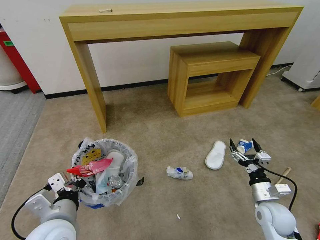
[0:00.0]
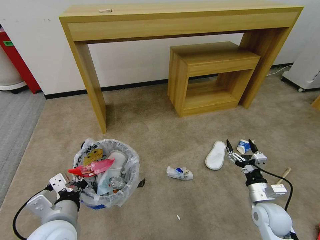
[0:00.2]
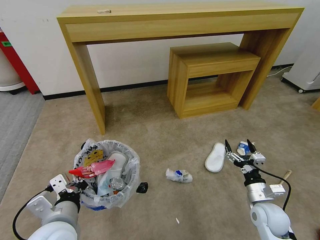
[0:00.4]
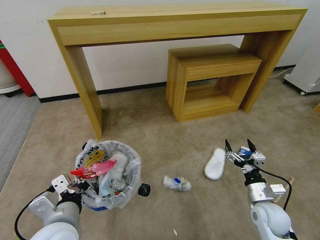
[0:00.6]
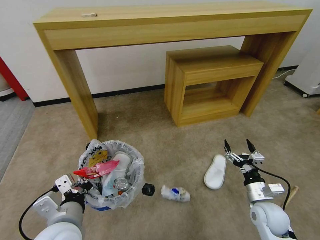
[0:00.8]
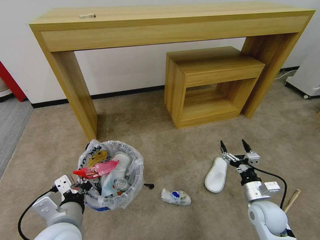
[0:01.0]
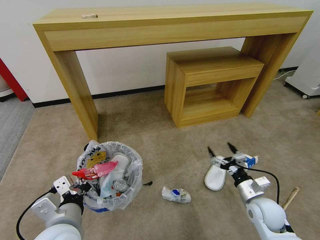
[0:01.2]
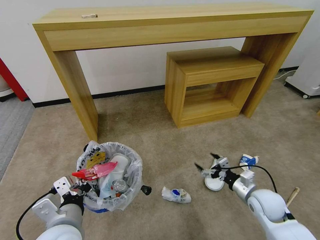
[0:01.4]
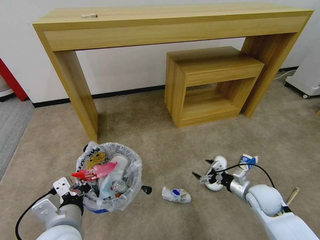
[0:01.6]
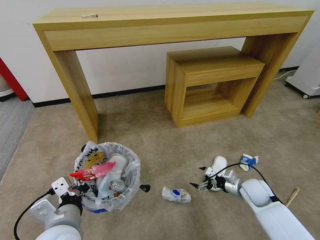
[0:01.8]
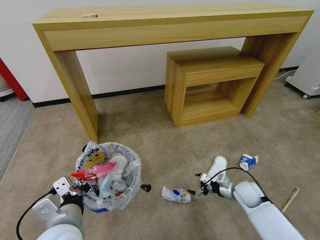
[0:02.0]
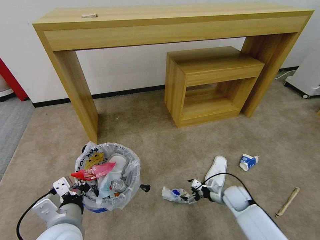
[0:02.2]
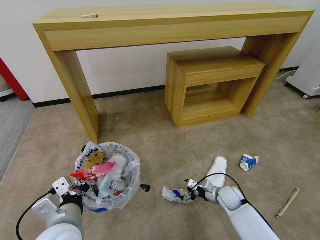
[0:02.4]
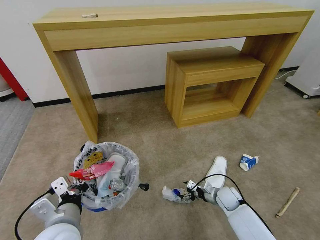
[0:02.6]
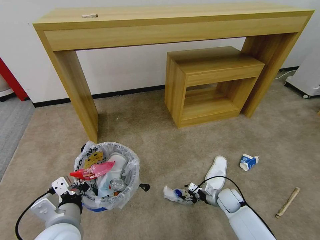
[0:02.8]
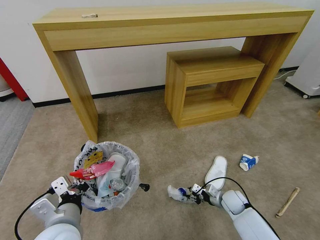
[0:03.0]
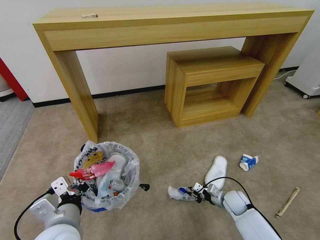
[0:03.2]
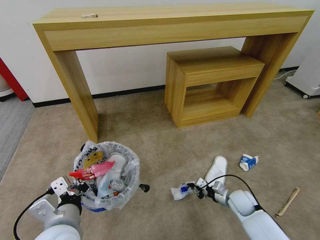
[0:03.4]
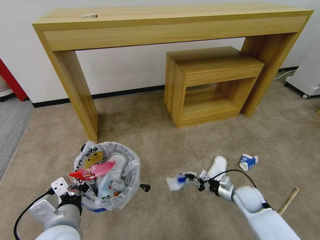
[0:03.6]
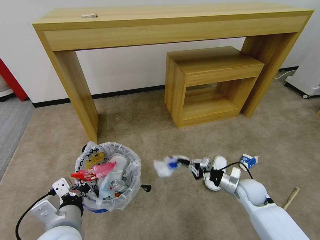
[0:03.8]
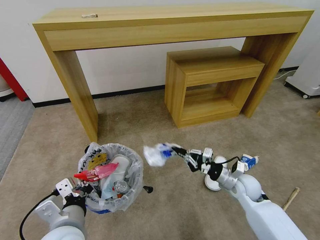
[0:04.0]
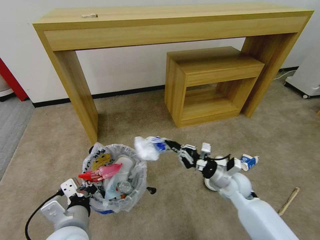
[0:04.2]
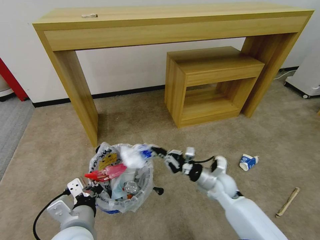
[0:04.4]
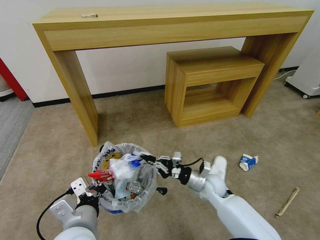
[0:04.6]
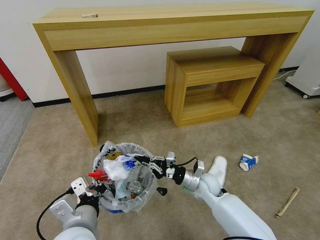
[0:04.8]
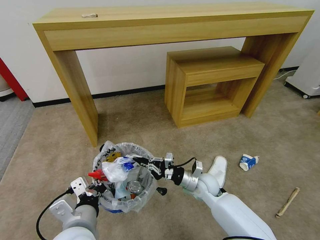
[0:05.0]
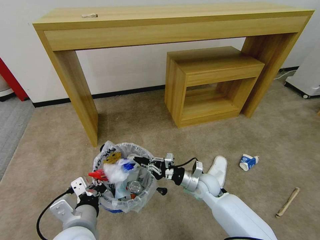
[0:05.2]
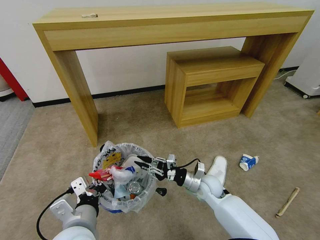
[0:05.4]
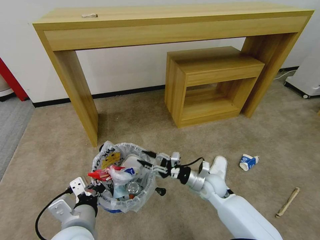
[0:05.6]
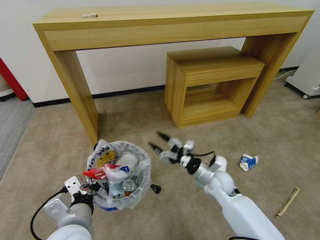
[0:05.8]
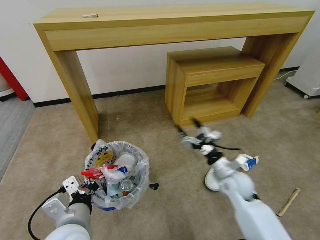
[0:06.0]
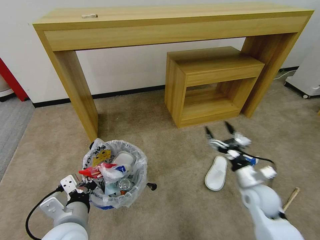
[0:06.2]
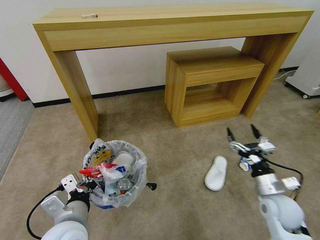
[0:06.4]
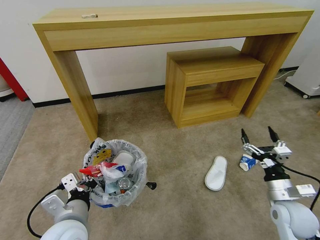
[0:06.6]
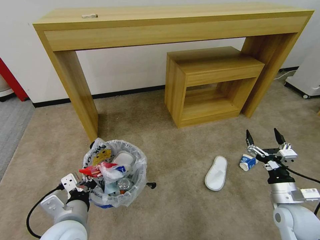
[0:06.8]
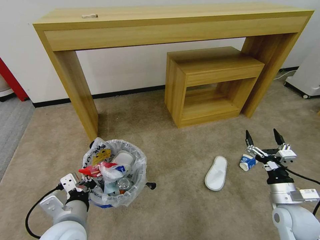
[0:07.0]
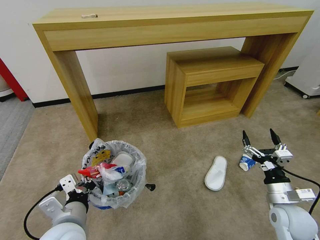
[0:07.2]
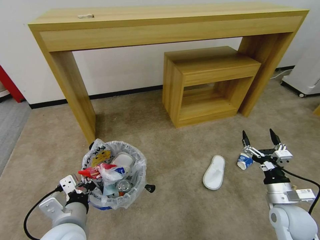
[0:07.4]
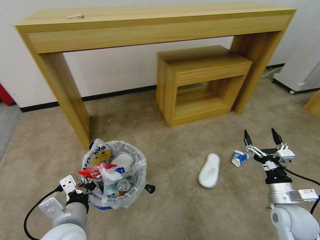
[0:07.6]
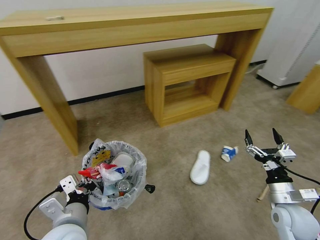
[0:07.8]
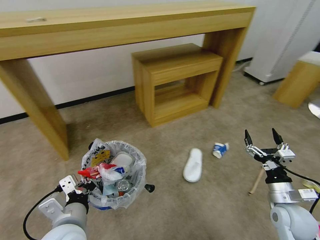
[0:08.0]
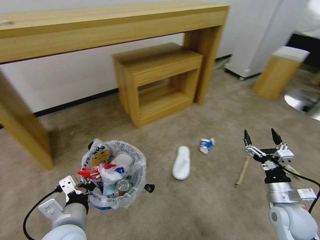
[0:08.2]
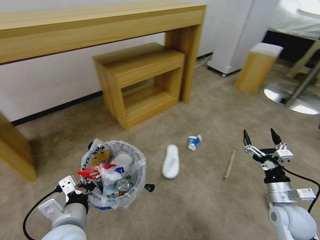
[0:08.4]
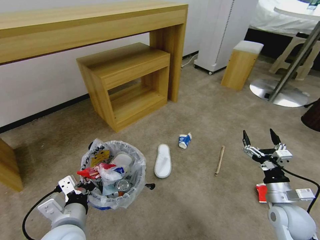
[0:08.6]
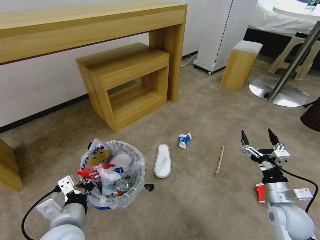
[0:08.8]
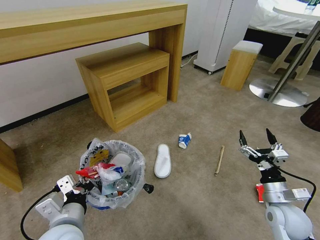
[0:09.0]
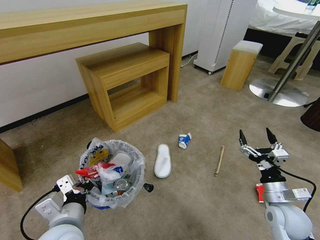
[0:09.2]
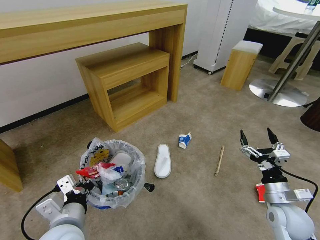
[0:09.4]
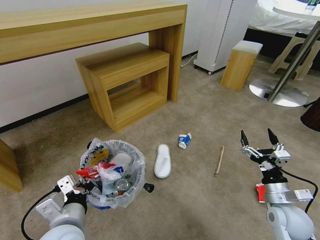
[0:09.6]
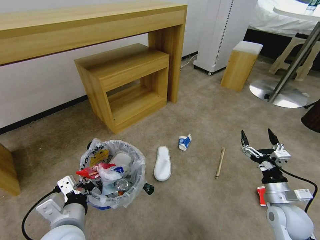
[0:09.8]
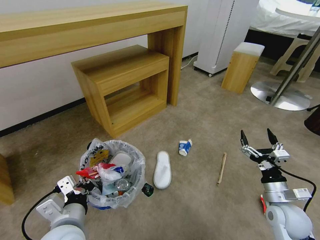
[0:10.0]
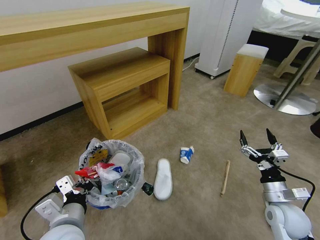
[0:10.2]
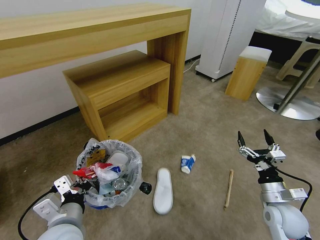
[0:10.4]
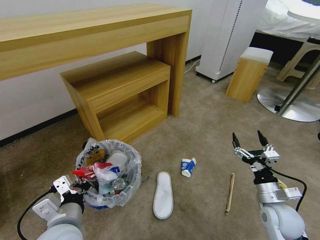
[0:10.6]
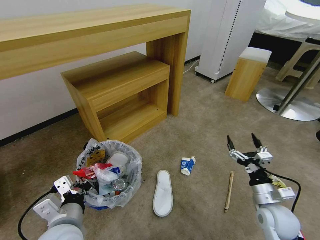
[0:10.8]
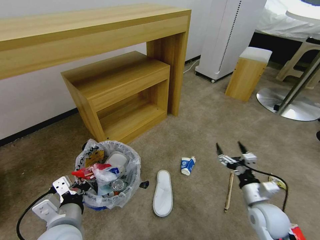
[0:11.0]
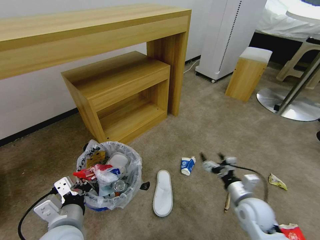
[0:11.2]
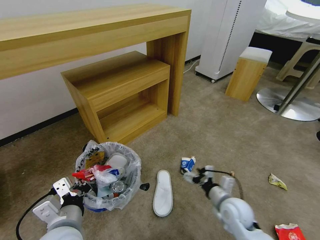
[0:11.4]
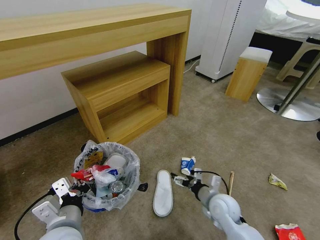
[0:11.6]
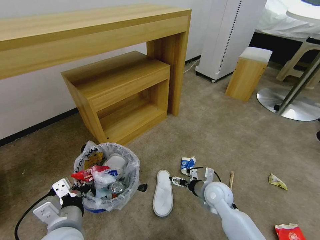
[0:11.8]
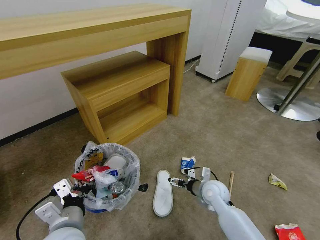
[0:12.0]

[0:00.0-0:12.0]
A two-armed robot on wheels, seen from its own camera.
Task of the whole recording: Pick up the trash bin and place the garbage on the floor into it.
0:00.0 to 0:01.6: The right gripper shifts by some 5 cm.
0:01.6 to 0:03.0: The right gripper travels downward by some 15 cm, and closes up.
0:03.0 to 0:04.4: The right gripper shifts about 15 cm upward and to the left, and closes its fingers.
0:04.4 to 0:06.0: The right gripper ends up about 5 cm from where it was, and opens.
0:06.0 to 0:07.6: The right gripper is displaced backward and to the right by some 15 cm.
0:10.4 to 0:12.0: The right gripper goes about 20 cm to the left and forward.

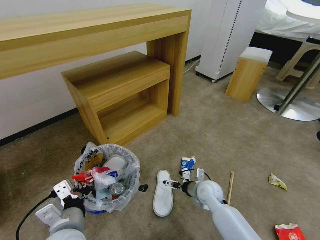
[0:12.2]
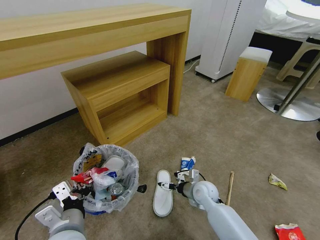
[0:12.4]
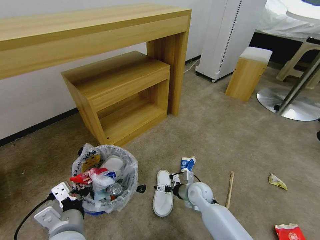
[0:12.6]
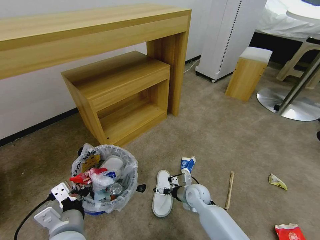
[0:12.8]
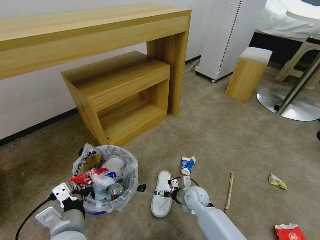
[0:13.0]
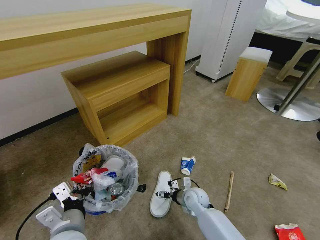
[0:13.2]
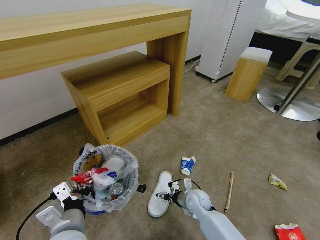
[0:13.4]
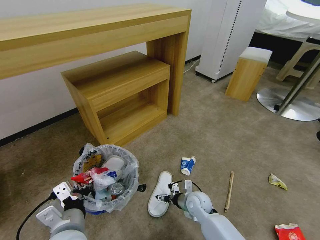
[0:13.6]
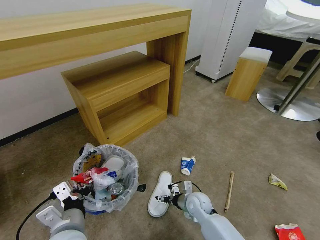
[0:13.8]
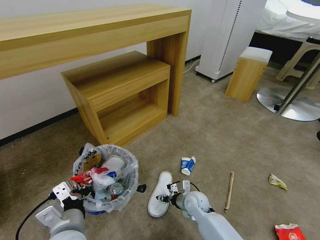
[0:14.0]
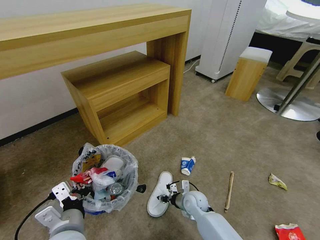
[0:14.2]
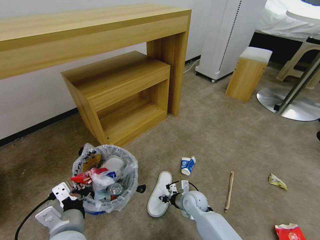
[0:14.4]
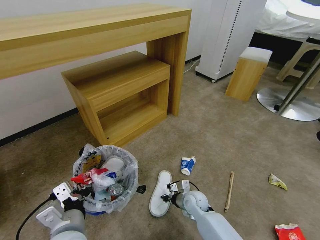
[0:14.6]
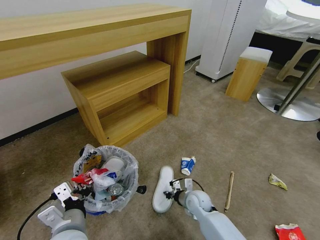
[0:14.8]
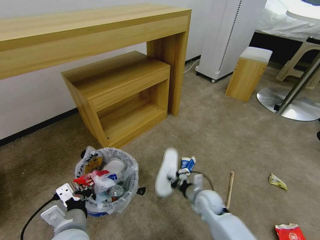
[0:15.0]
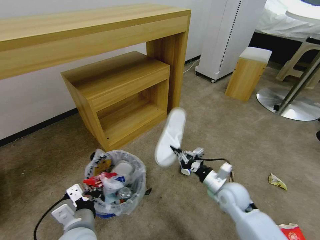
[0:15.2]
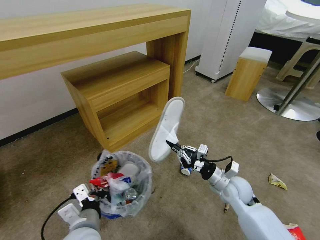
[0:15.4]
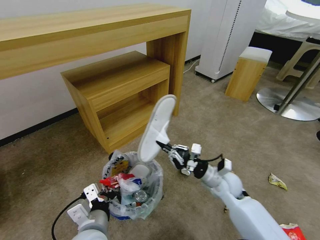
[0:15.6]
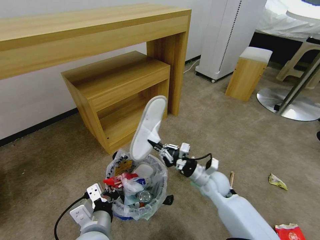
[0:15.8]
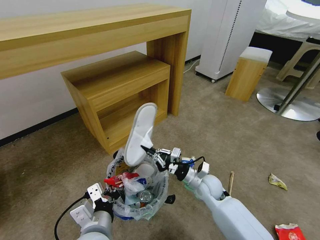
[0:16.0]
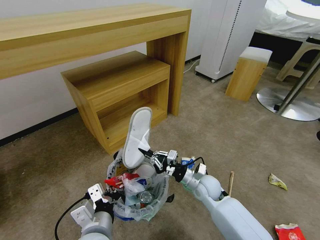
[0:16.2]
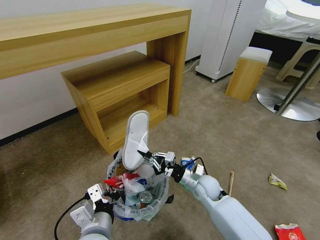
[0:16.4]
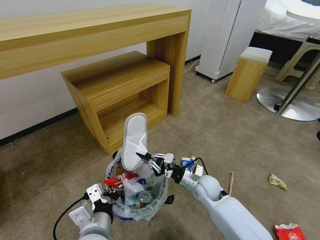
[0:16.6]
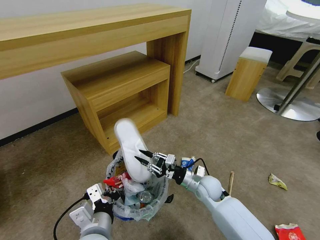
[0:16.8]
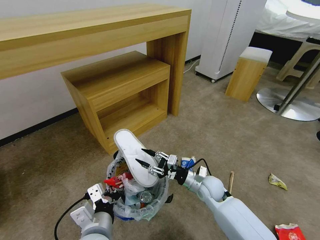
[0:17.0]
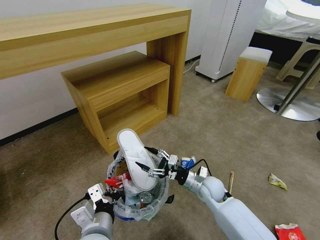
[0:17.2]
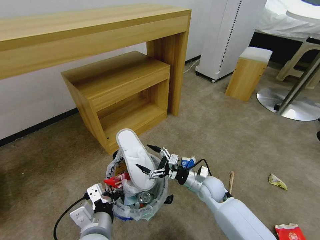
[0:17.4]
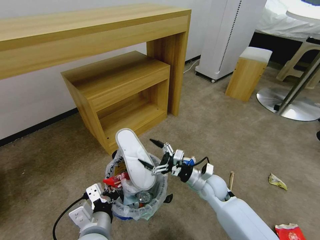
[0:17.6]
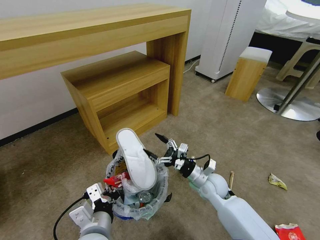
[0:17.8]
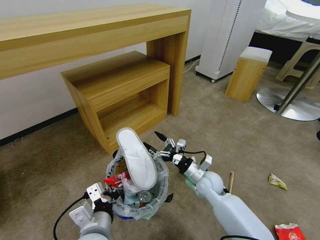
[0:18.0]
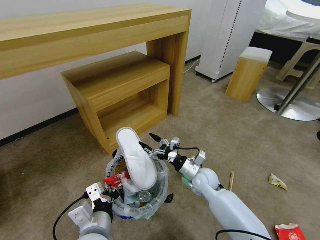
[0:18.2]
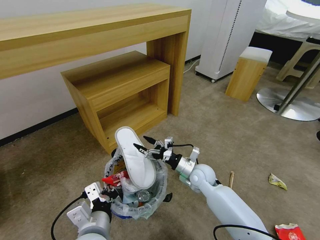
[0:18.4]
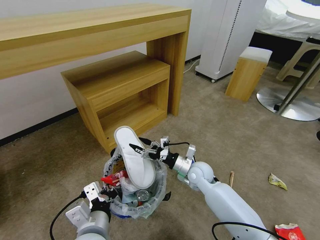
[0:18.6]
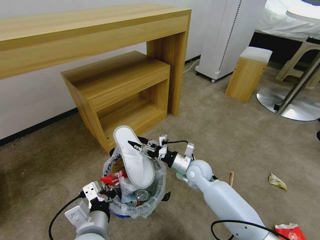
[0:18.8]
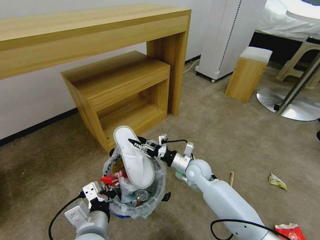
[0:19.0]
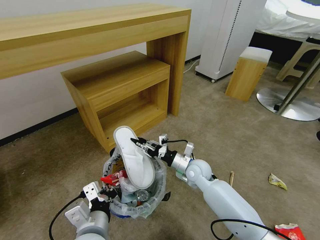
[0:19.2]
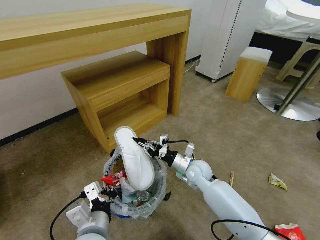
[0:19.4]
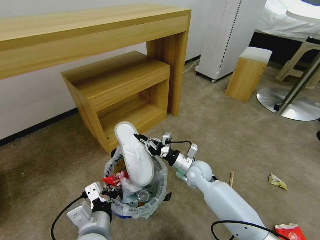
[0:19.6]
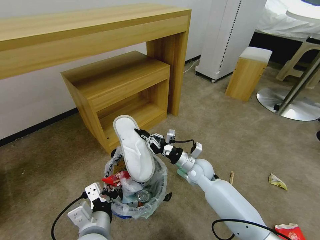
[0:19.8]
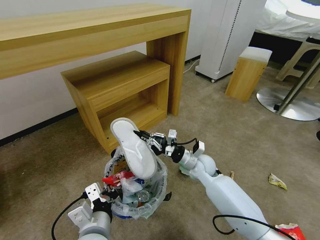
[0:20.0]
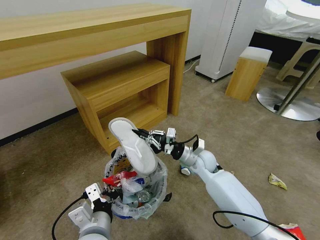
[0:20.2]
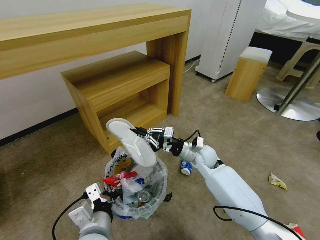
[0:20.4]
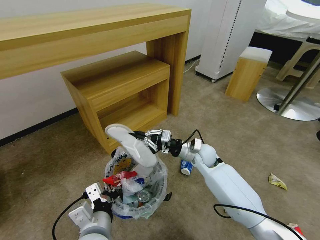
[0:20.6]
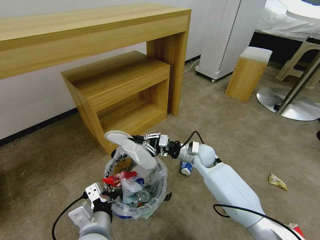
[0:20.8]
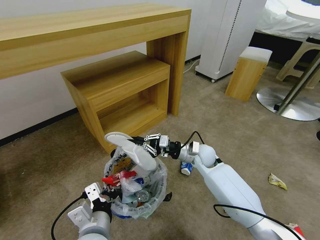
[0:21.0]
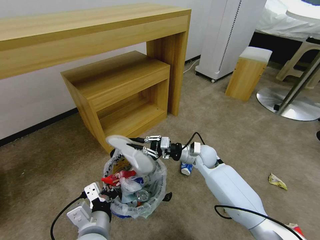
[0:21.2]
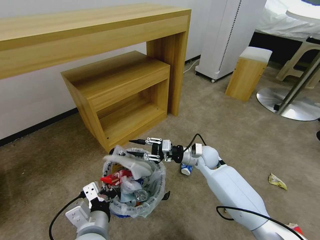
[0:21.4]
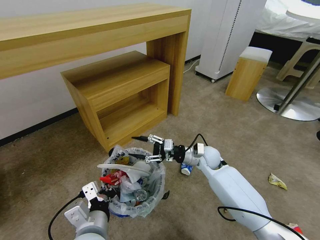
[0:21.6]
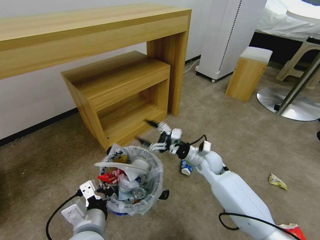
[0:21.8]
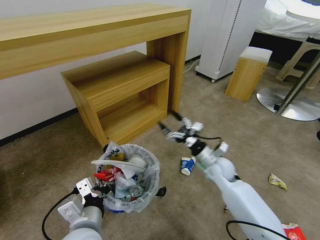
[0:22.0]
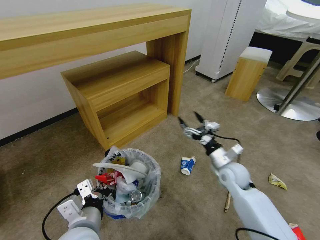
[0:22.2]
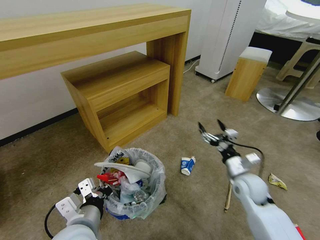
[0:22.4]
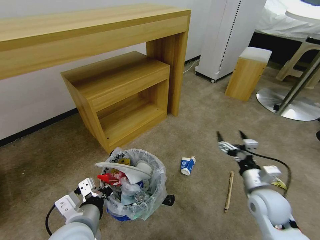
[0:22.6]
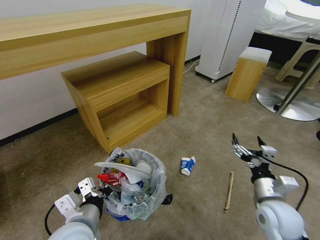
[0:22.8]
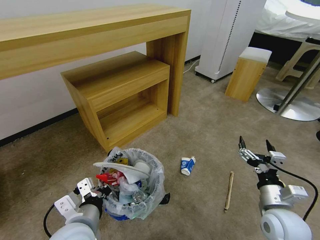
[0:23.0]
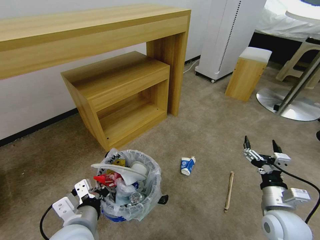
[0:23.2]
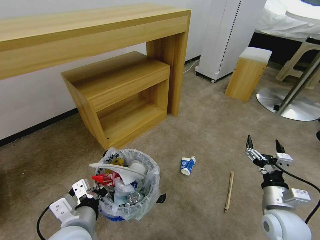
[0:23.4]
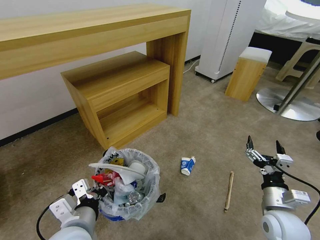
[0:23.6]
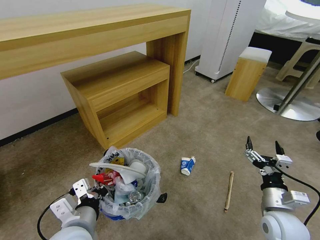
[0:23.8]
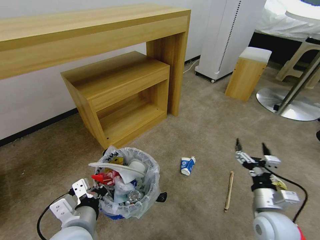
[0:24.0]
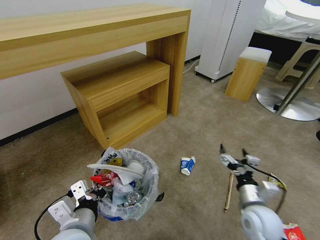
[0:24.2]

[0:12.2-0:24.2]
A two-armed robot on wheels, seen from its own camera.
Task of the whole recording: Pick up the trash bin and place the garbage on the floor into it.
0:12.2 to 0:13.8: The right gripper moves roughly 5 cm.
0:13.8 to 0:15.2: The right gripper travels upward and to the right by approximately 15 cm, and closes up.
0:15.2 to 0:16.6: The left gripper ends up some 5 cm from where it was, while the right gripper moves to the left, about 5 cm.
0:16.6 to 0:18.2: The right gripper opens its fingers.
0:18.2 to 0:19.8: The right gripper closes.
0:19.8 to 0:21.2: The right gripper moves approximately 5 cm.
0:21.2 to 0:22.6: The right gripper heads backward and to the right, covering about 25 cm, and opens its fingers.
0:22.6 to 0:24.2: The right gripper shifts by roughly 5 cm.
